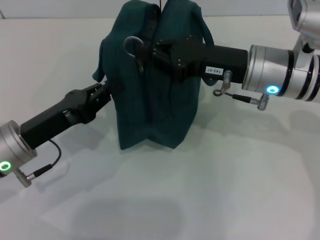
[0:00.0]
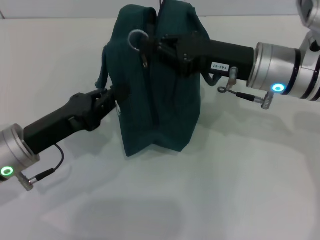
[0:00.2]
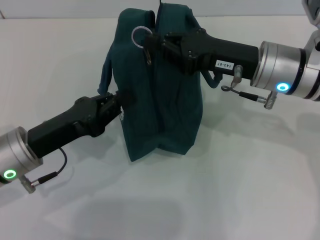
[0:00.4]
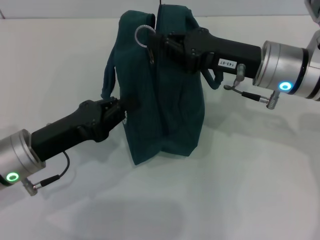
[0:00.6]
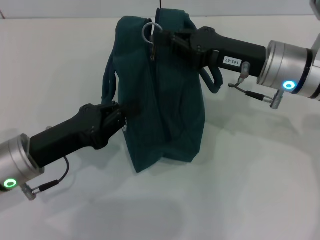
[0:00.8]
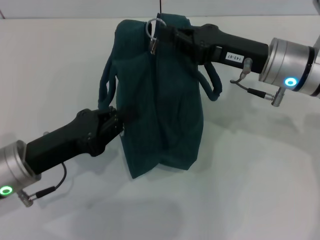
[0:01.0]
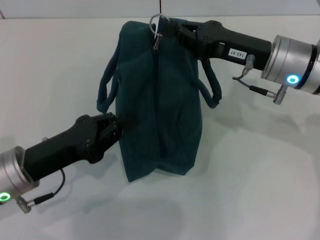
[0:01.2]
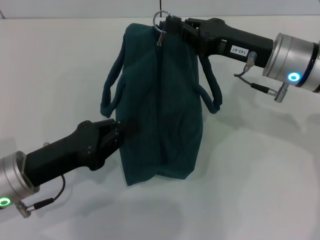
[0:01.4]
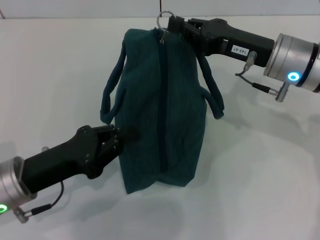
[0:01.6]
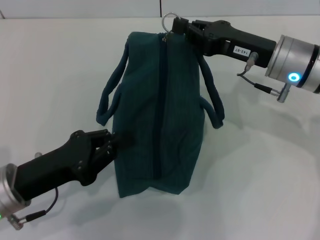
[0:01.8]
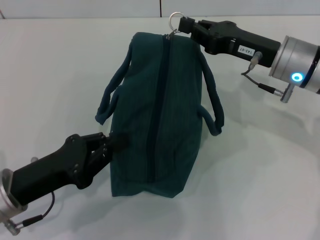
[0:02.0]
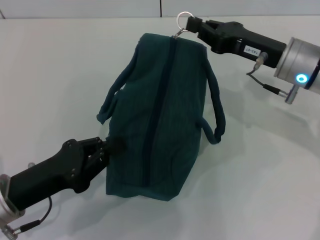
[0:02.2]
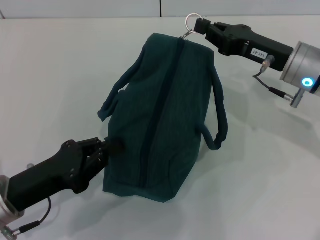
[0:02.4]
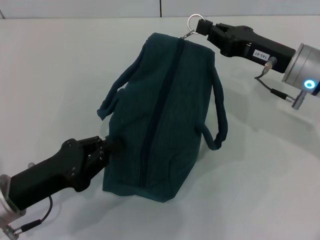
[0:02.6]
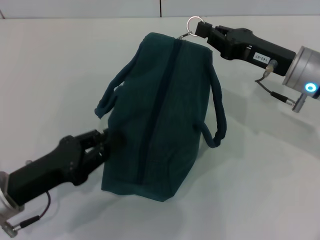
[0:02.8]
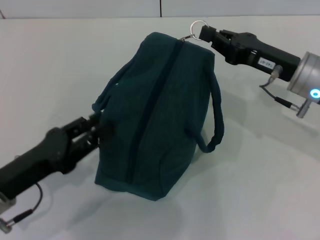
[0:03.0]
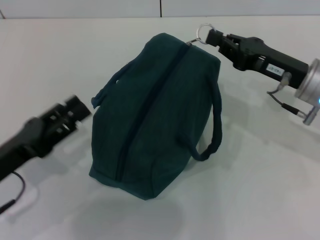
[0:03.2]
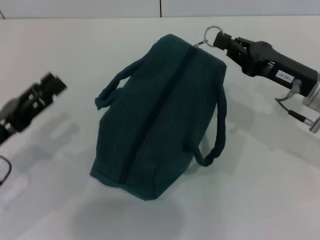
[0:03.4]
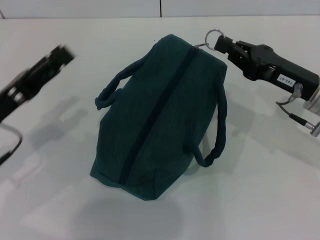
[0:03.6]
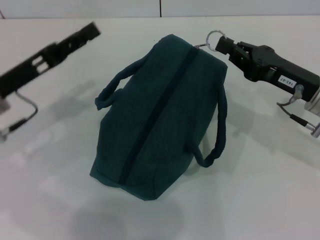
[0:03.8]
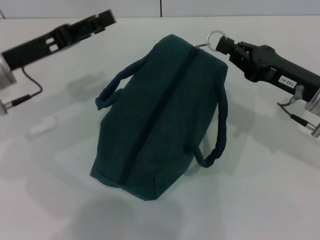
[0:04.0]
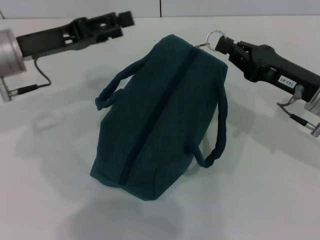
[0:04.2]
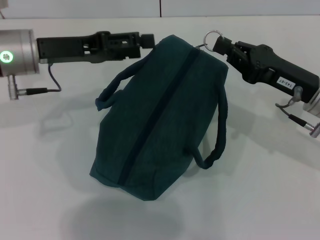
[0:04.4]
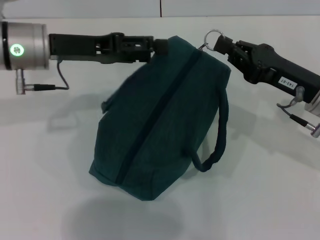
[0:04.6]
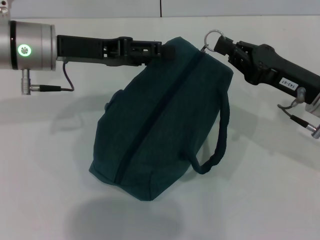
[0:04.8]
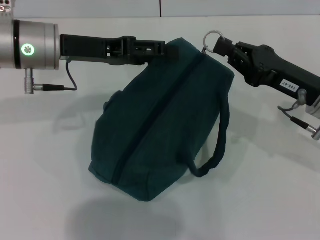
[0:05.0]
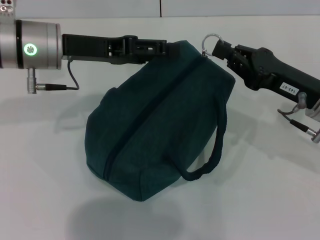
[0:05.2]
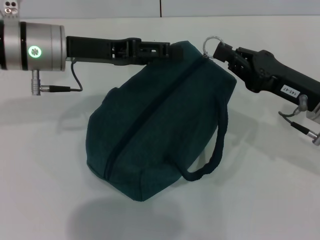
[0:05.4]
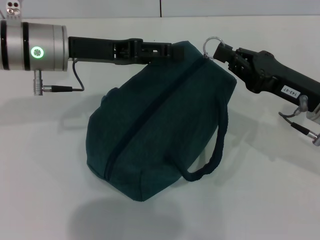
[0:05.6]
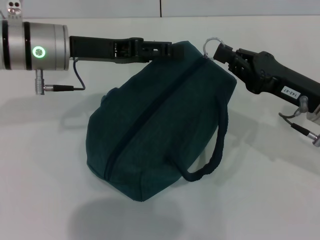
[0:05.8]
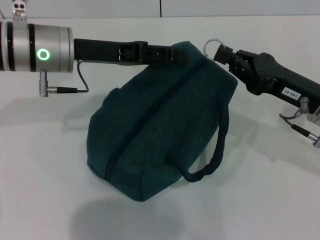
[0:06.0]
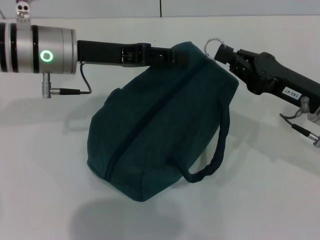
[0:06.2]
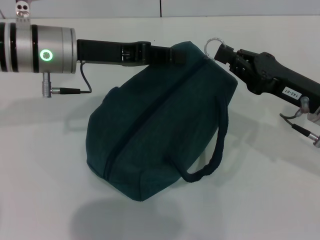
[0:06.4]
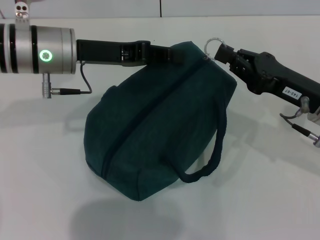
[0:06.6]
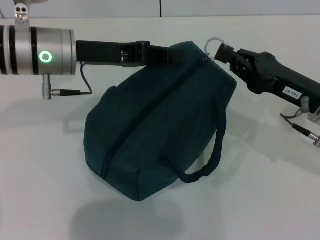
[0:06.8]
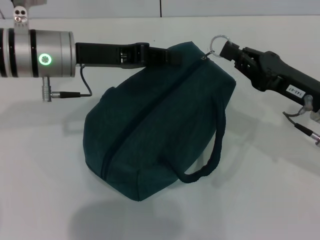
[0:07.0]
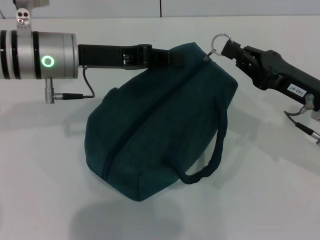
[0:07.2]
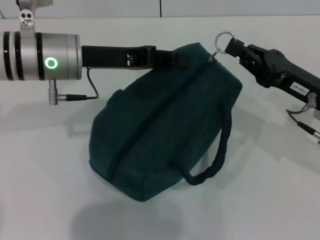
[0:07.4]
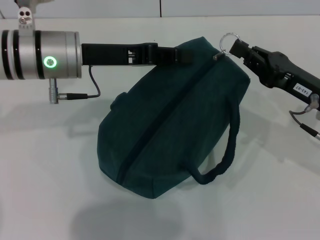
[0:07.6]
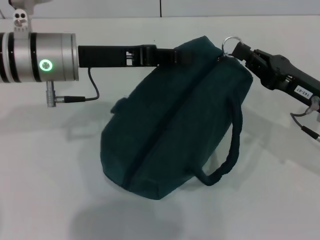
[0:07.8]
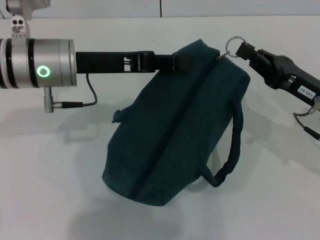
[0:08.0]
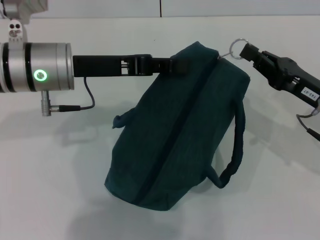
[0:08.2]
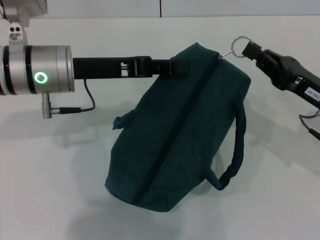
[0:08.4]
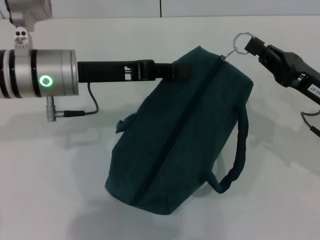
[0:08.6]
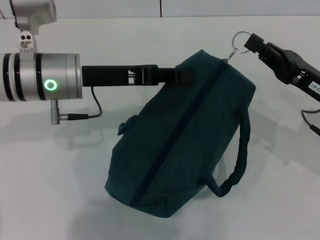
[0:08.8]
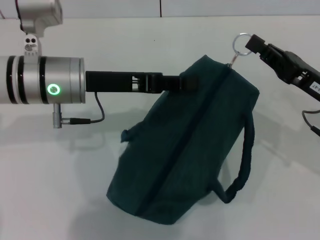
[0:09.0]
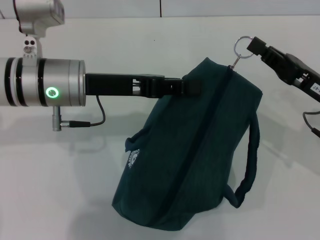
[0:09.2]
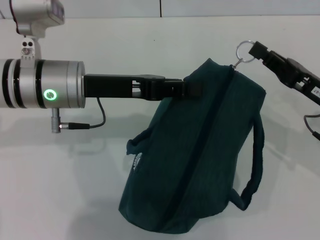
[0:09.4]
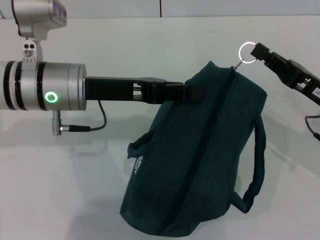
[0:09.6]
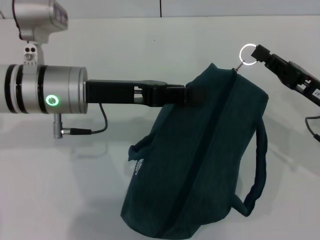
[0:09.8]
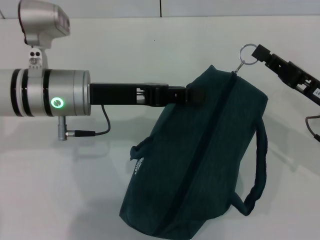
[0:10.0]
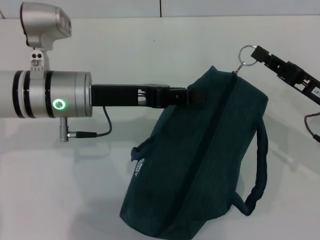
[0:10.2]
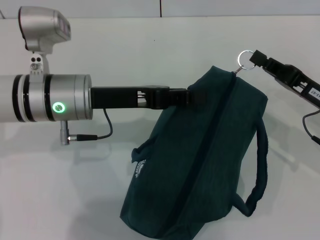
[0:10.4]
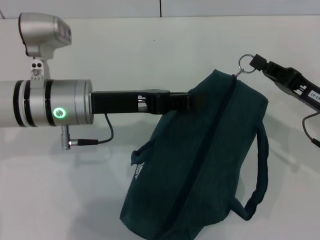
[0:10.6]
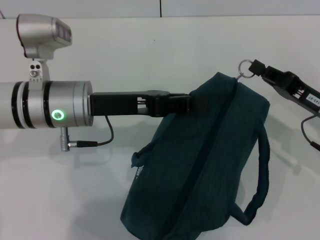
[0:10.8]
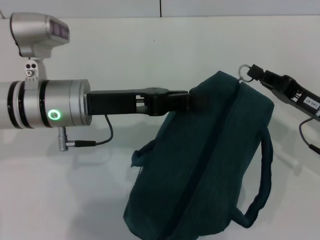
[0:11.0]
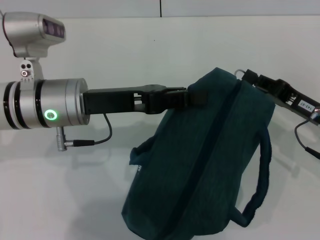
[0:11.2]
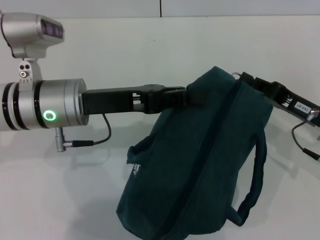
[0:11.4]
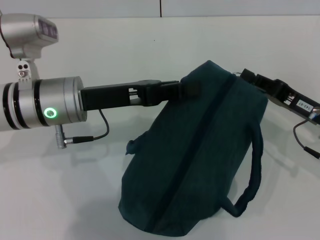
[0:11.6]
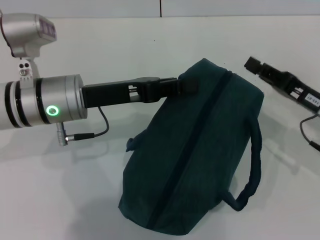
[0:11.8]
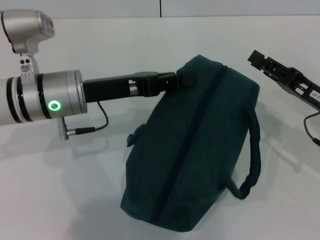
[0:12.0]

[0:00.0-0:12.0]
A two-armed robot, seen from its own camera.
0:01.6 to 0:03.0: The grippers move only a little.
0:03.0 to 0:04.4: The left gripper travels forward and upward by some 20 cm, and opens its fingers.
0:04.4 to 0:06.0: The grippers move only a little.
0:06.0 to 0:07.6: The left gripper closes its fingers.
0:10.4 to 0:12.0: The grippers move only a little.

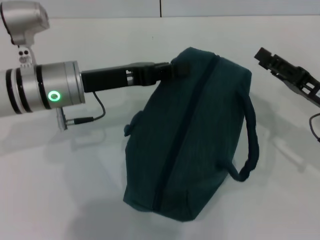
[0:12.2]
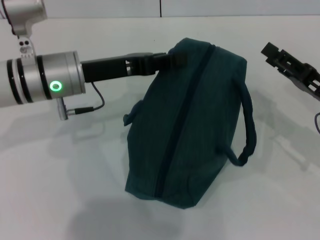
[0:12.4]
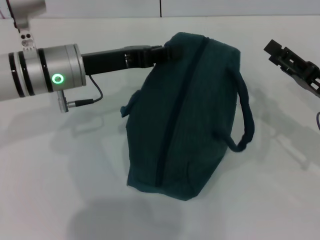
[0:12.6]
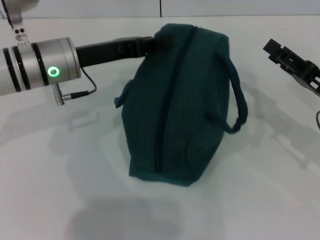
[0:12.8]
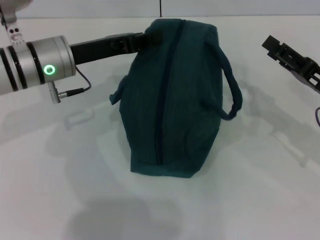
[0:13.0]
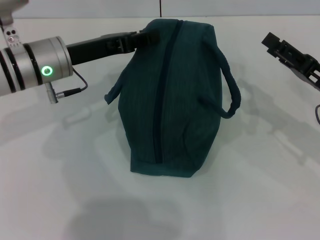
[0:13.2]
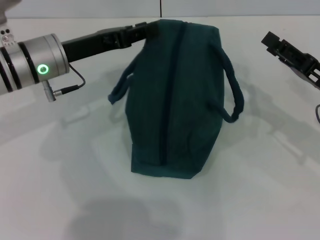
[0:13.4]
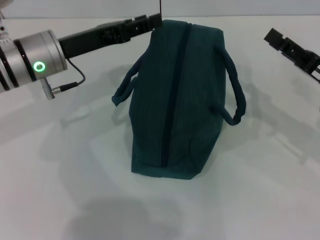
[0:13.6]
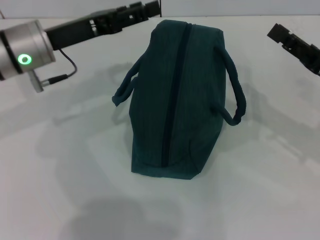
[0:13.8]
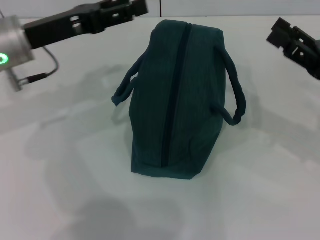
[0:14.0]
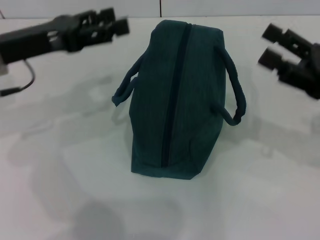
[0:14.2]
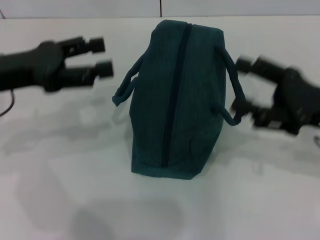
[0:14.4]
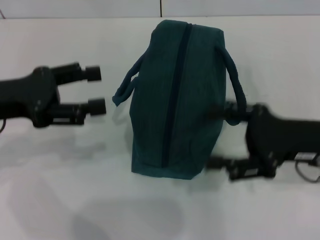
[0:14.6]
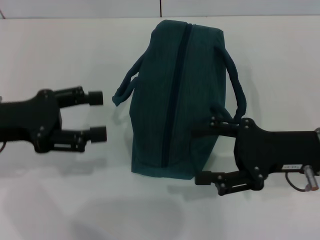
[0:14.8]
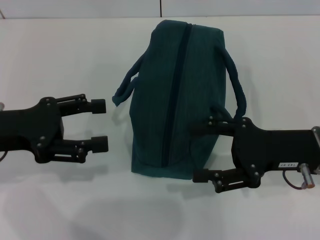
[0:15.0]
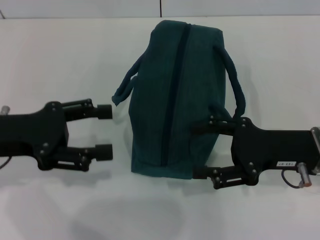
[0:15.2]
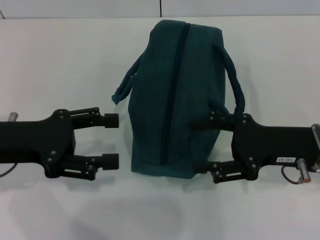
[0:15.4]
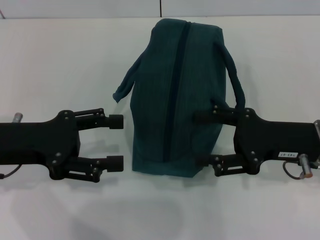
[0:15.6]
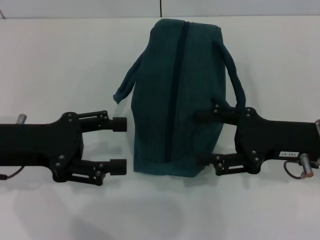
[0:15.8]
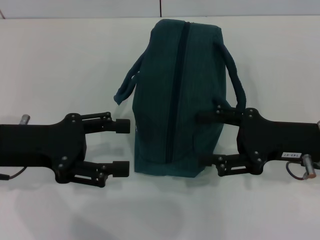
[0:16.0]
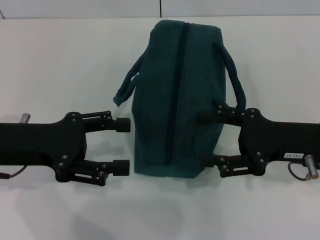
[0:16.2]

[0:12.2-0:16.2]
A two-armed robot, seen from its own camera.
Step, 0:12.2 to 0:13.6: Hold the lunch bag with your left hand.
0:12.2 to 0:13.6: The right gripper opens up. The left gripper opens its fingers.
0:13.6 to 0:14.8: The right gripper goes some 5 cm to the left; the left gripper travels backward and to the left by approximately 15 cm, and opens up.
0:14.8 to 0:16.2: The grippers move only a little.
